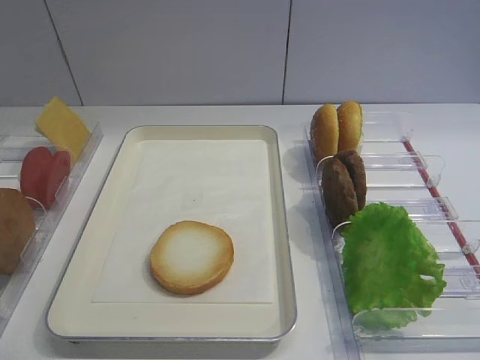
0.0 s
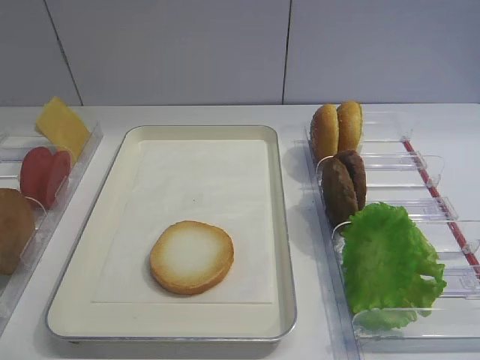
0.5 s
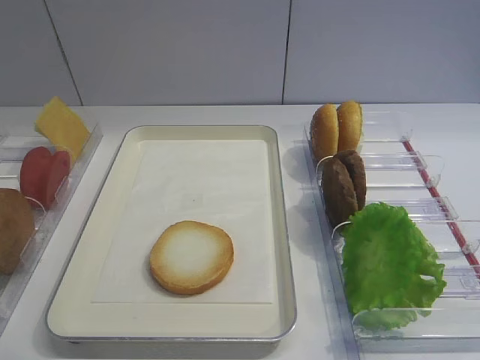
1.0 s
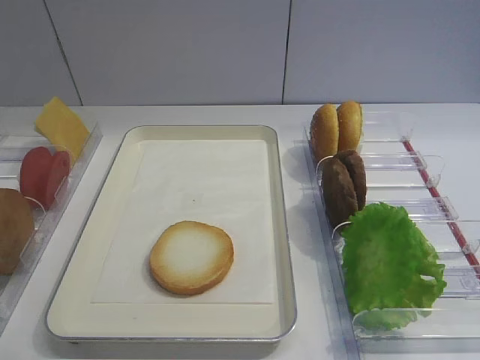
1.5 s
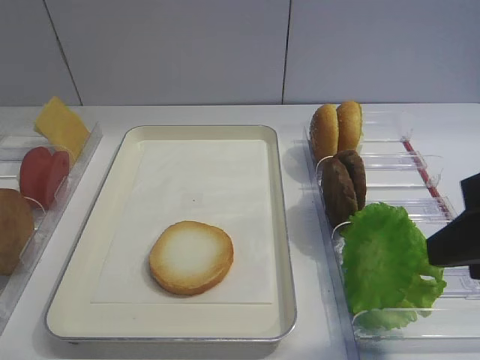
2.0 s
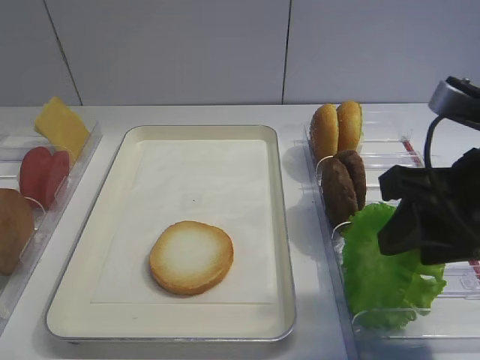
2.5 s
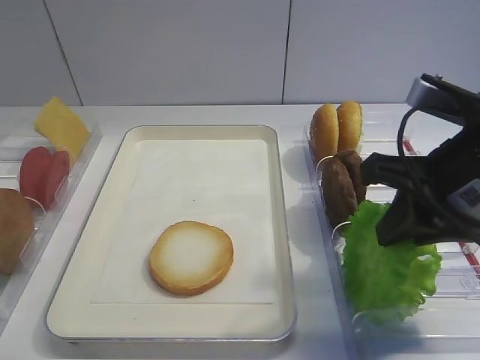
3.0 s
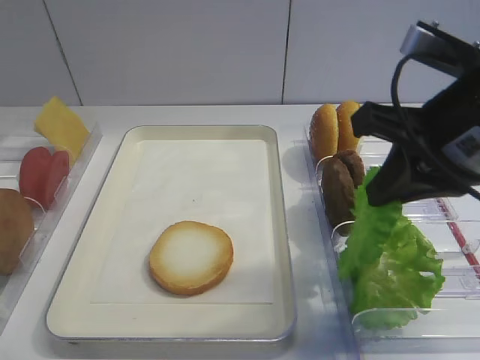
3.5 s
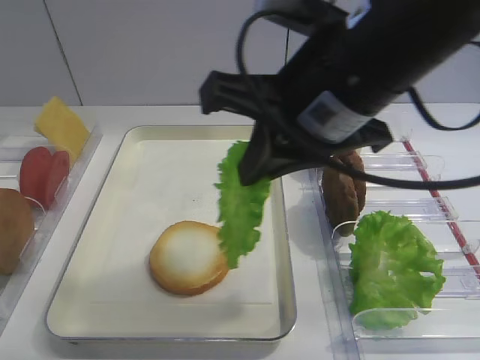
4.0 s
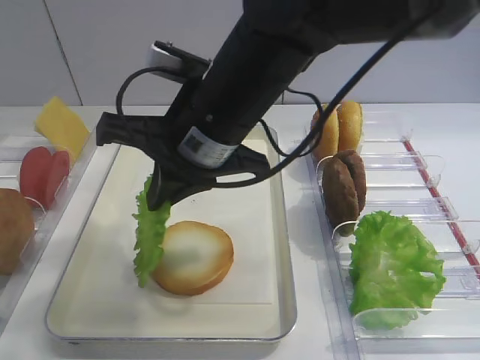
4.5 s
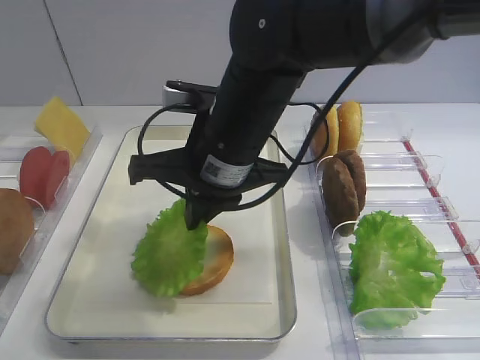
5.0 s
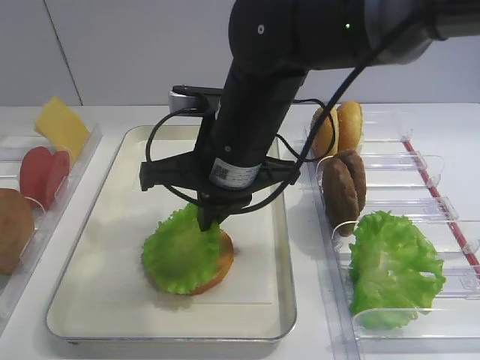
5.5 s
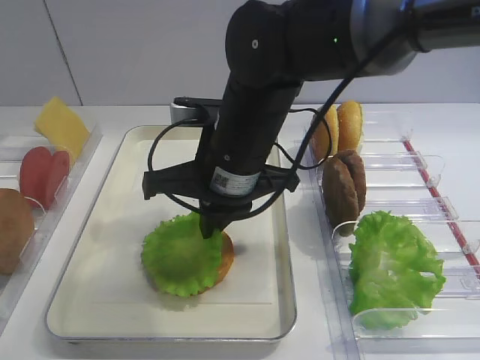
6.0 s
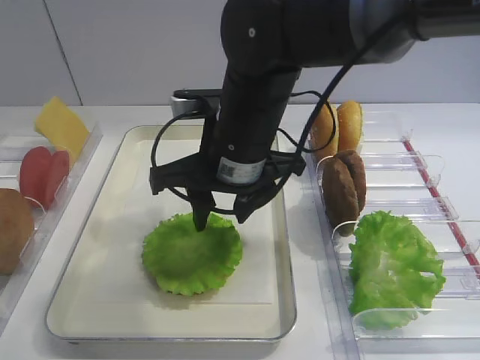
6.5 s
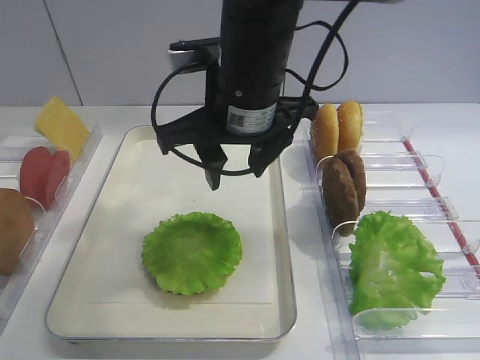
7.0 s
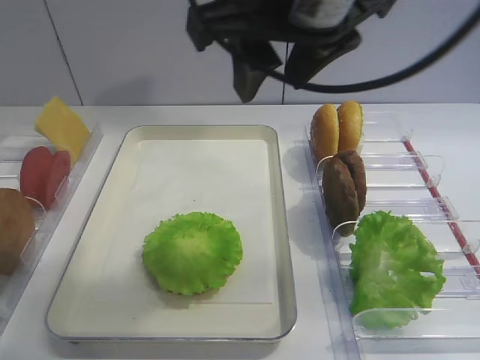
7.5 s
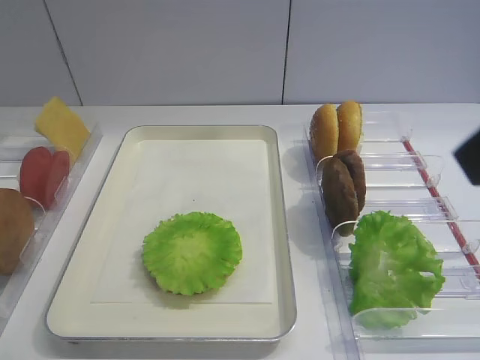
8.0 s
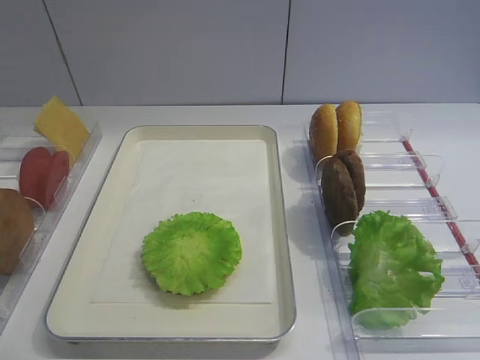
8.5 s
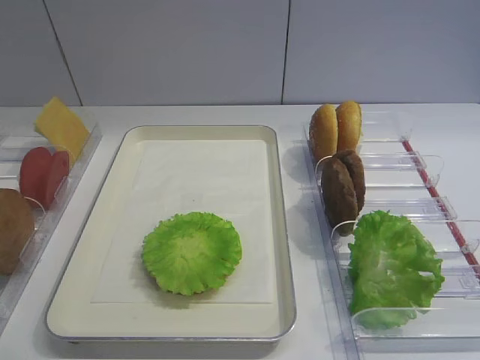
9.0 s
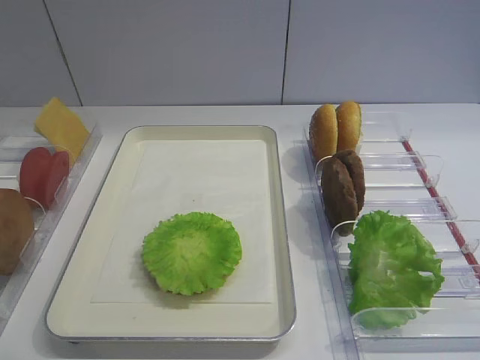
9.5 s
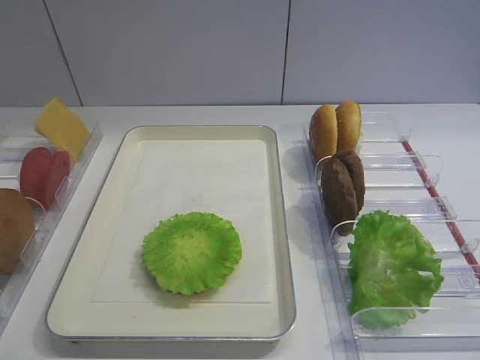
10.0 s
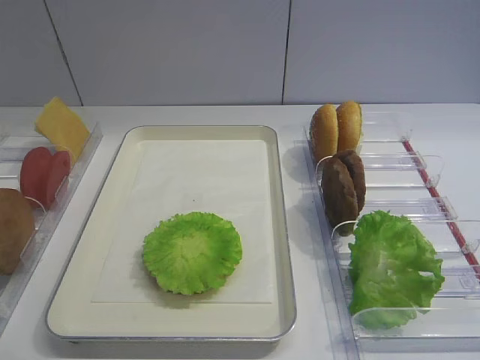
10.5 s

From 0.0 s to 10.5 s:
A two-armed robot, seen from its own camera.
Step, from 0.0 s to 3.5 s: Pick up the lettuce leaf with the right gripper.
Step, from 4.0 s to 7.0 s: Place the lettuce leaf on the bread slice with the right gripper.
From 2.0 s to 4.0 s: The right gripper moves to the left and forward, some 15 cm, and closes its fingers.
From 4.0 s to 6.5 s: The right gripper travels downward, forward and to the left by some 10 cm, and opens its fingers.
From 6.5 s to 8.5 s: The right gripper is displaced backward and to the right by approximately 40 cm.

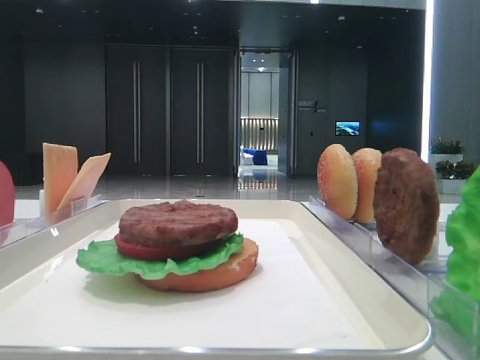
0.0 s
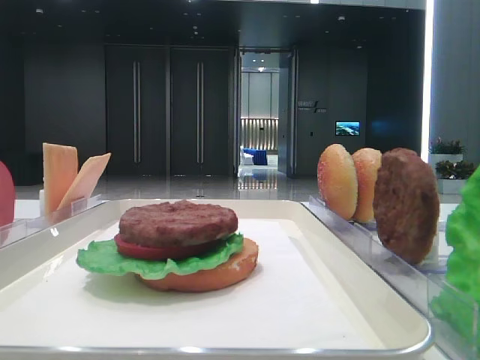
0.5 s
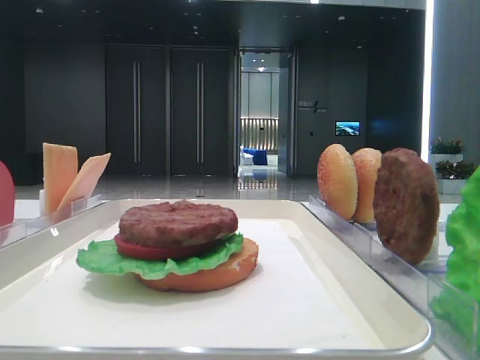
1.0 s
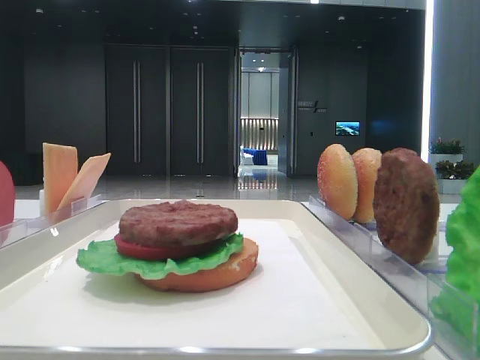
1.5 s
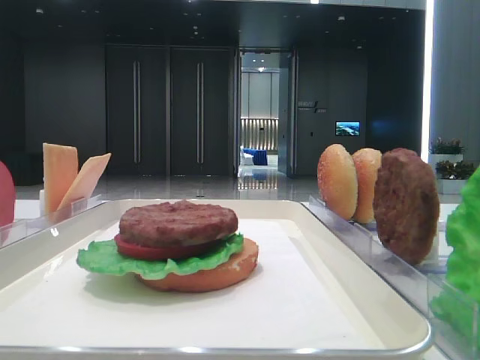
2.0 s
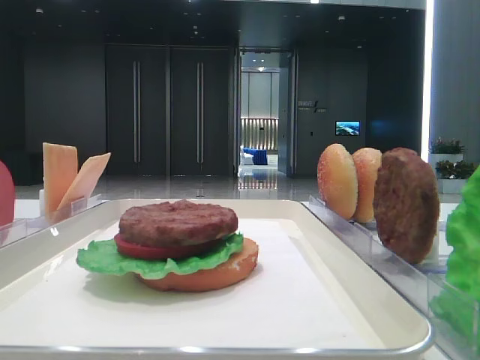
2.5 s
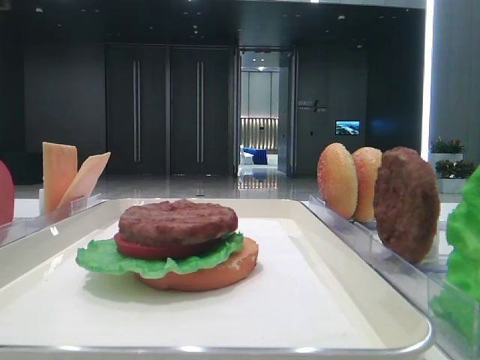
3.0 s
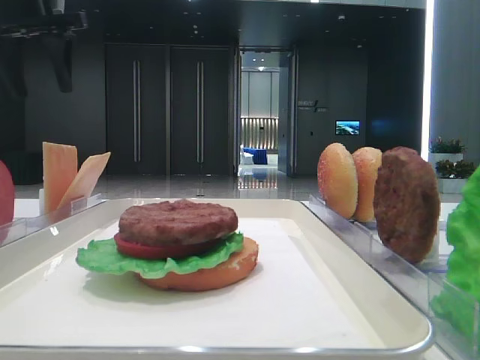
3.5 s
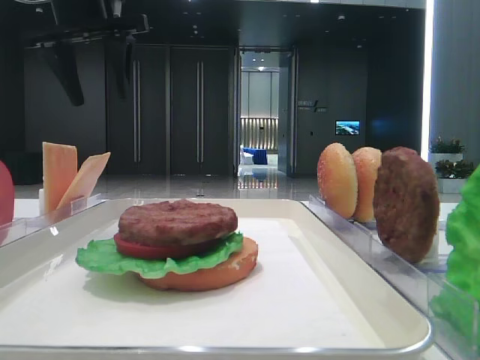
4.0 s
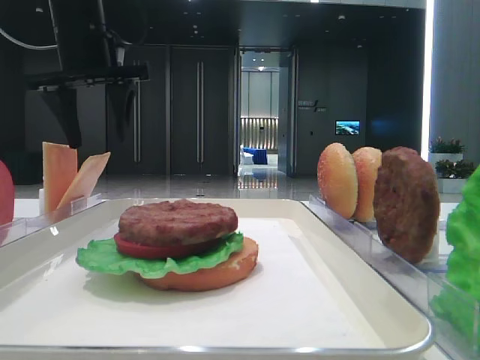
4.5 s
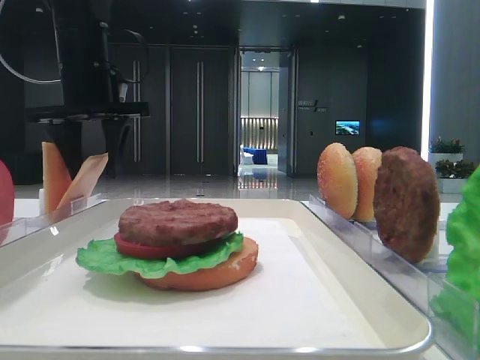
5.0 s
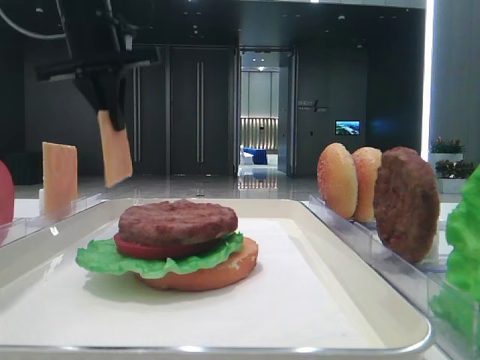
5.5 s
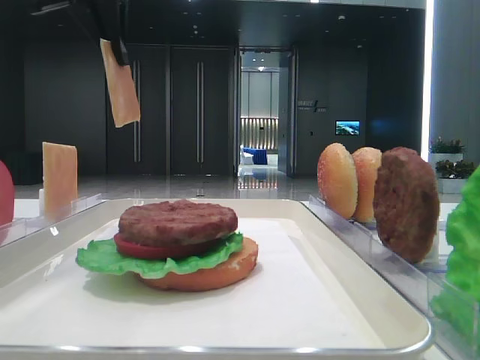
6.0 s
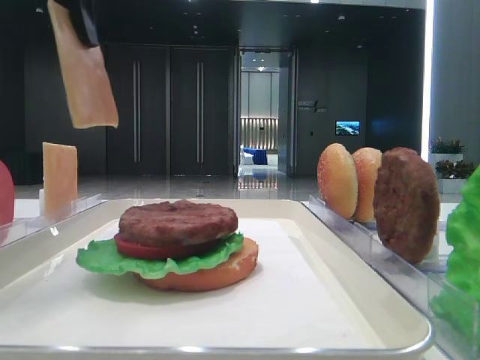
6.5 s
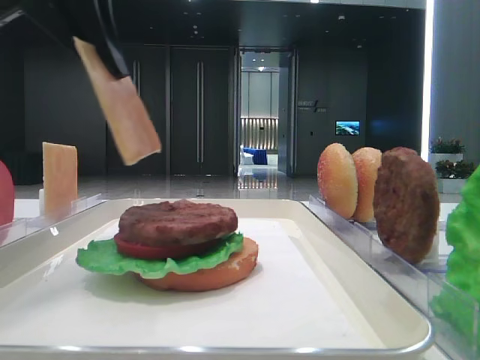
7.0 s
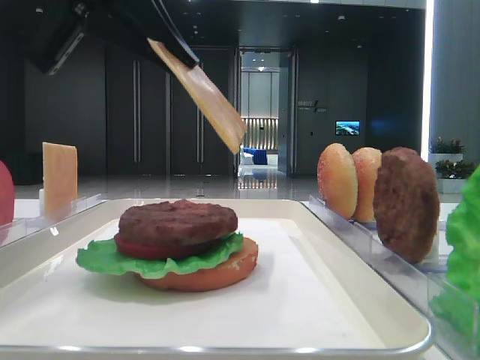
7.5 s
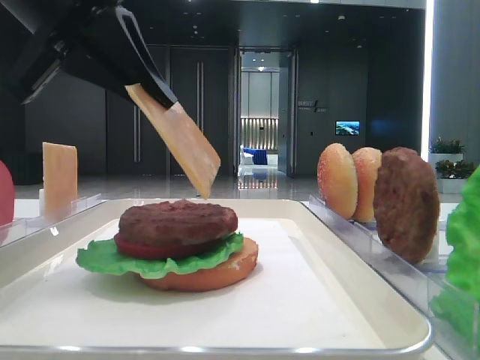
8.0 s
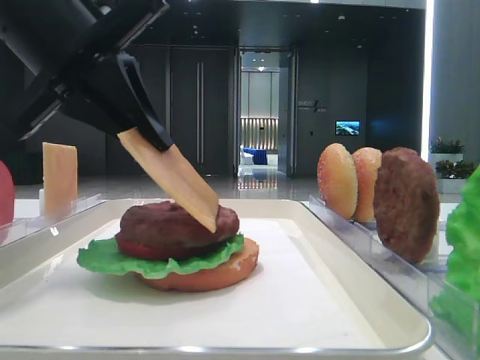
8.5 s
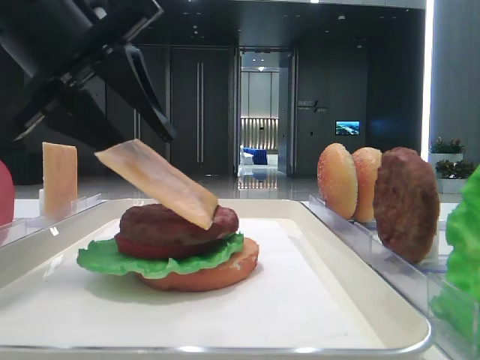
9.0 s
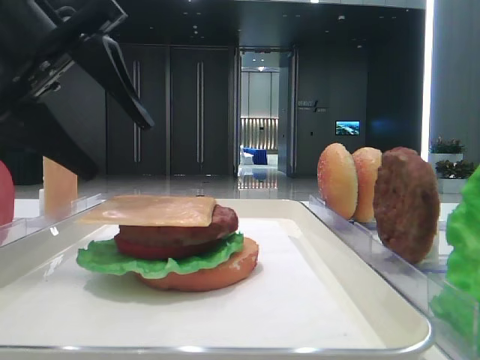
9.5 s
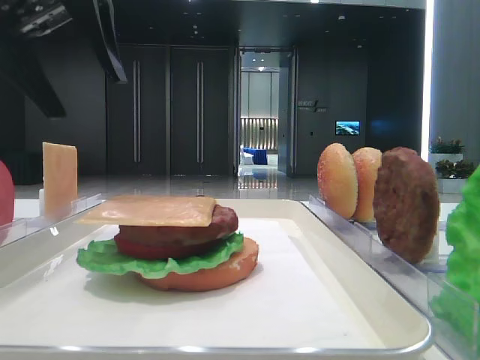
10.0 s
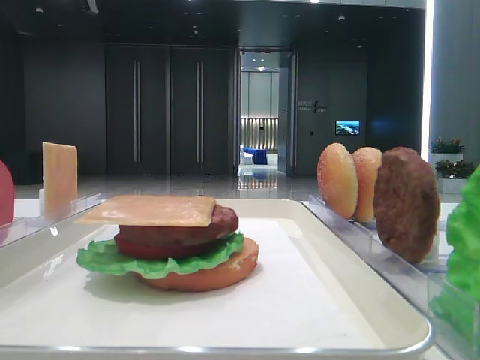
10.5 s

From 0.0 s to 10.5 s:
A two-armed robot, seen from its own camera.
Step, from 0.0 s to 5.0 s: Pick up the cheese slice with the left hand.
Step, from 5.5 s to 9.0 s: Place the cheese slice on the patty with the left hand.
From 2.0 s to 4.0 s: The left gripper is displaced forward by some 40 cm.
From 4.0 s to 6.5 s: The left gripper moves backward, approximately 15 cm, and closes its fingers.
From 6.5 s to 8.5 s: The left gripper is displaced downward by approximately 10 cm.
From 8.5 s to 10.5 s: The left gripper is displaced upward by approximately 15 cm, and opens.

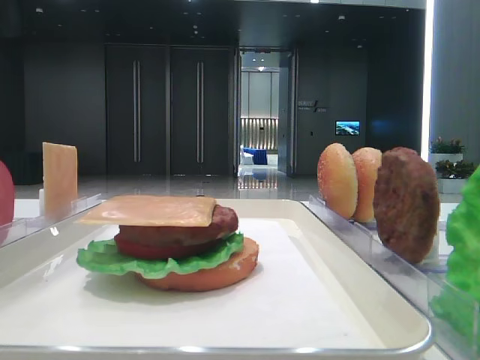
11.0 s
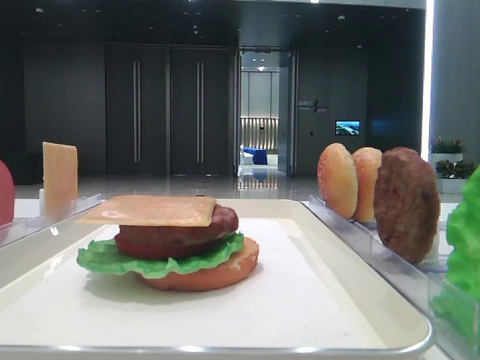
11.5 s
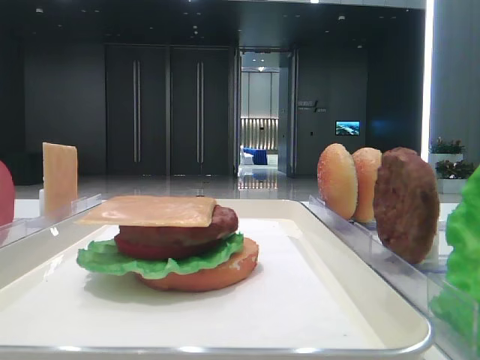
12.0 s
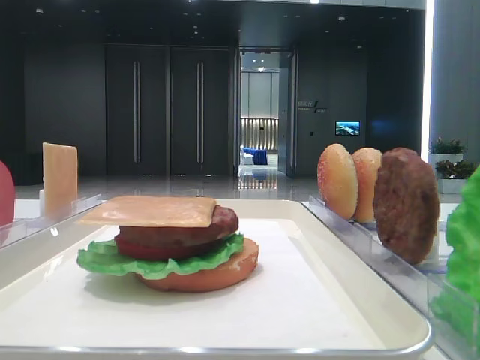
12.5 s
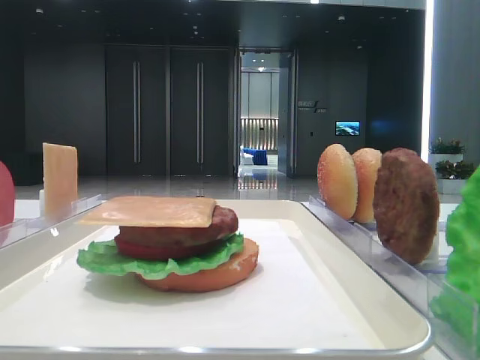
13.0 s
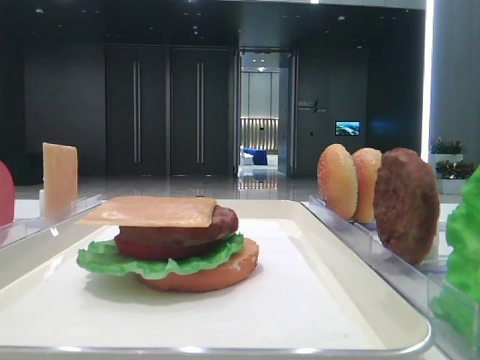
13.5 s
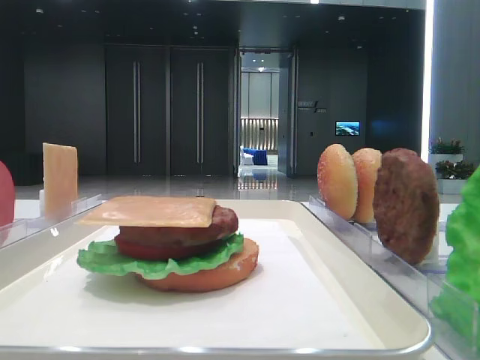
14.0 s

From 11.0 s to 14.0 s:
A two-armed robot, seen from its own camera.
From 11.0 s to 12.5 s: The left gripper shifts some 30 cm backward.

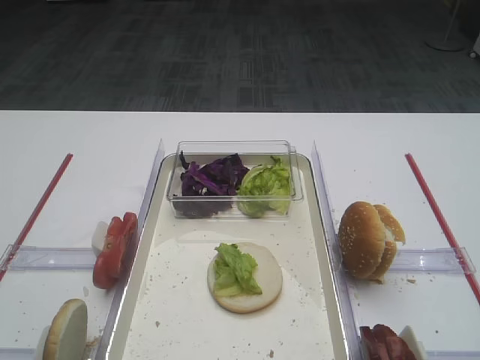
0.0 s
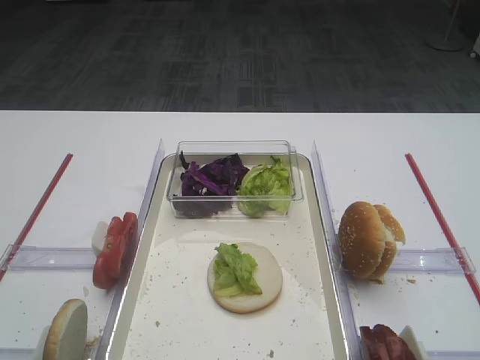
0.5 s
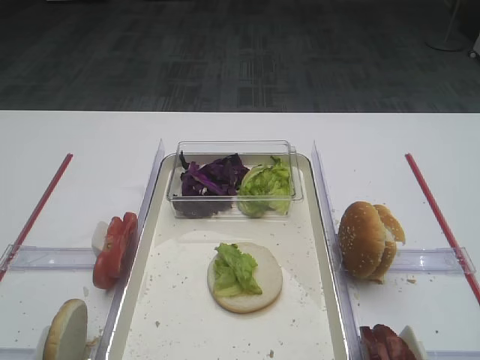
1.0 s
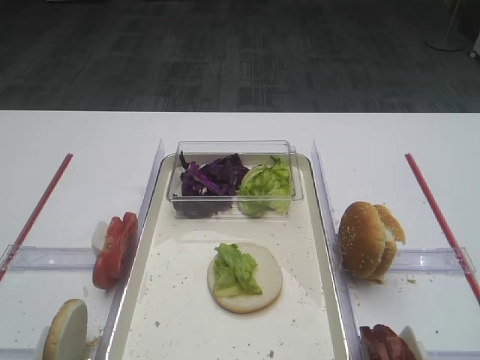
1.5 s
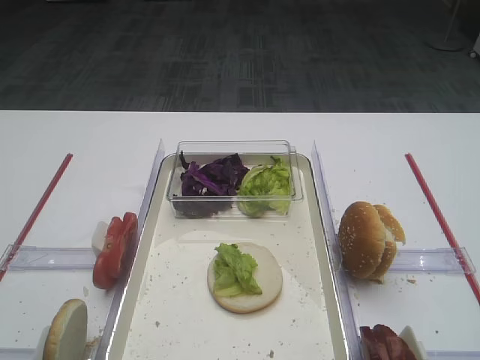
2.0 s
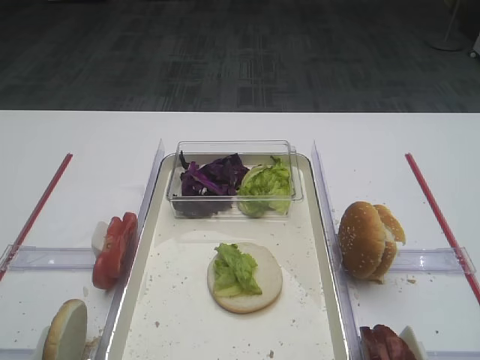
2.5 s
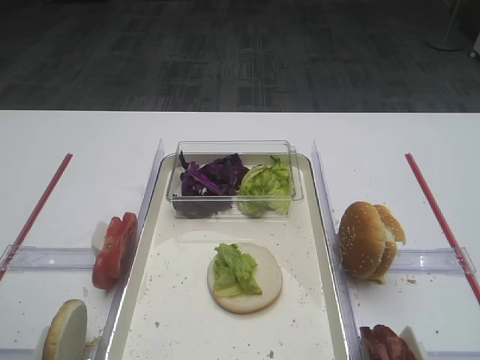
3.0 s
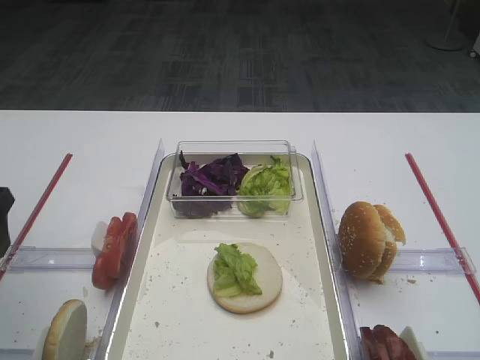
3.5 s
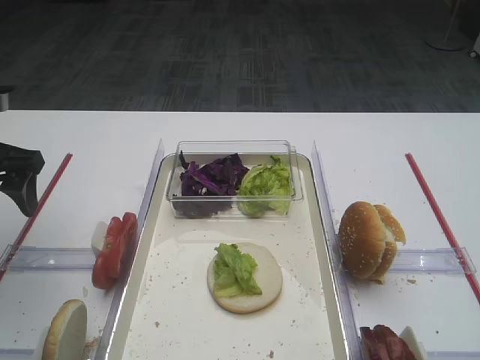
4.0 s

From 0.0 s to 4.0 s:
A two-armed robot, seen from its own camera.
From 2.0 s to 4.0 s: The left gripper is displaced forward by approximately 30 cm.
